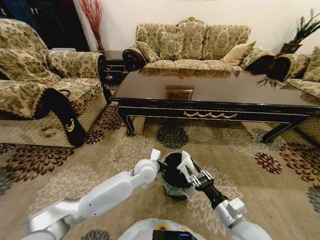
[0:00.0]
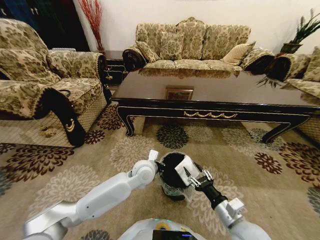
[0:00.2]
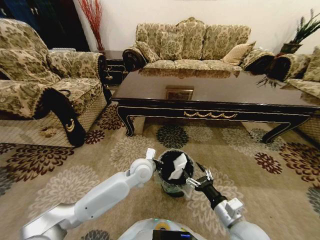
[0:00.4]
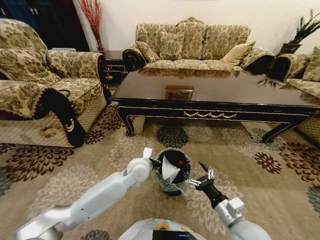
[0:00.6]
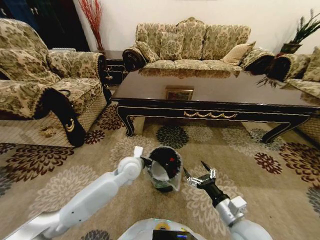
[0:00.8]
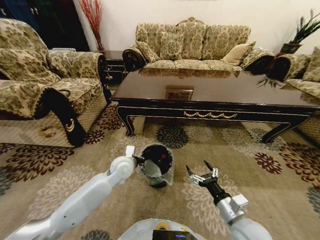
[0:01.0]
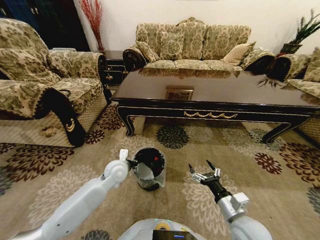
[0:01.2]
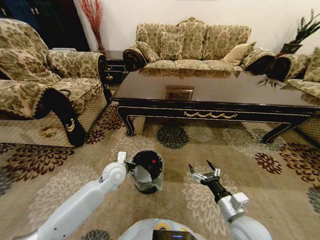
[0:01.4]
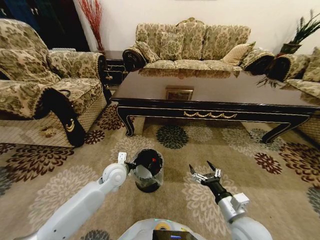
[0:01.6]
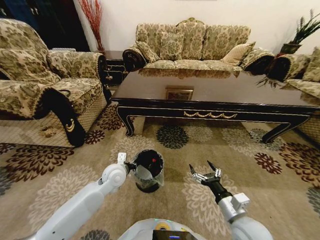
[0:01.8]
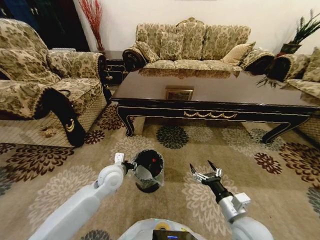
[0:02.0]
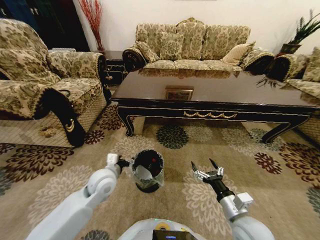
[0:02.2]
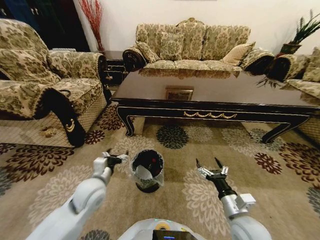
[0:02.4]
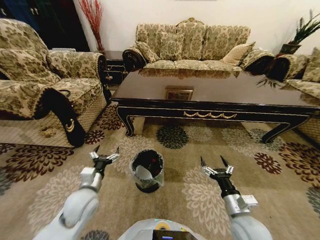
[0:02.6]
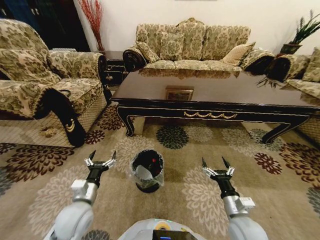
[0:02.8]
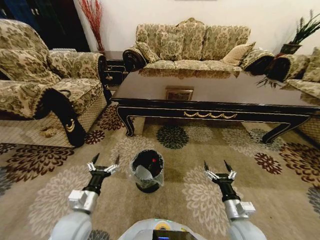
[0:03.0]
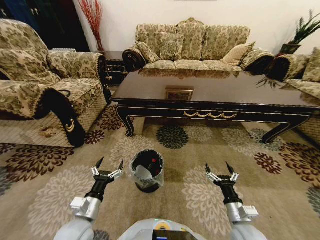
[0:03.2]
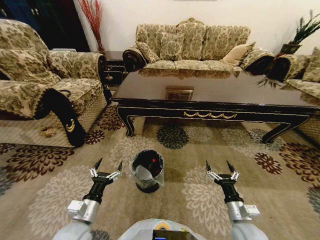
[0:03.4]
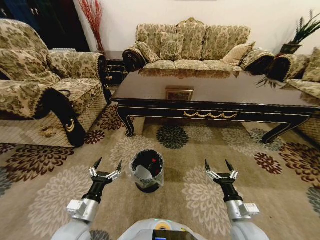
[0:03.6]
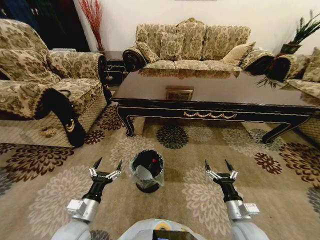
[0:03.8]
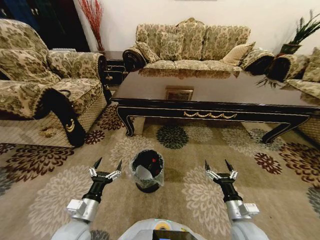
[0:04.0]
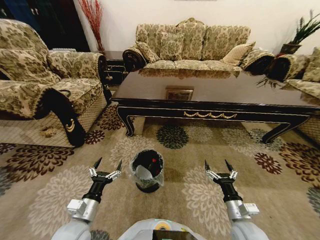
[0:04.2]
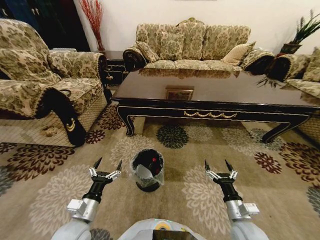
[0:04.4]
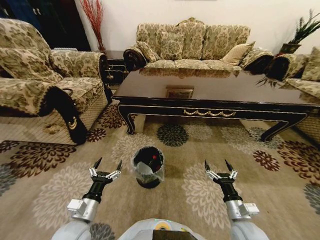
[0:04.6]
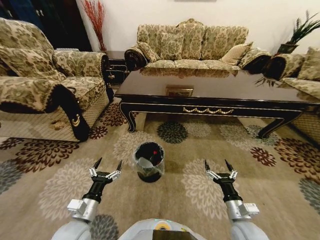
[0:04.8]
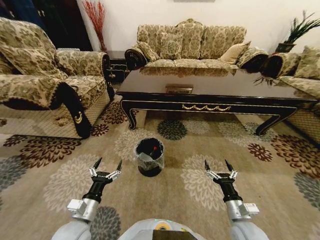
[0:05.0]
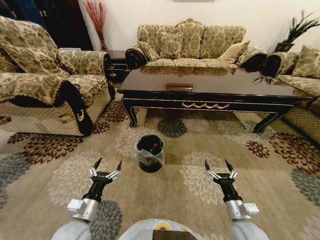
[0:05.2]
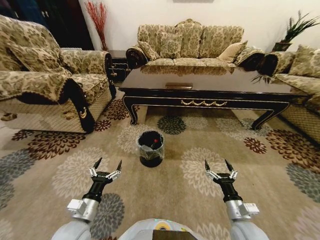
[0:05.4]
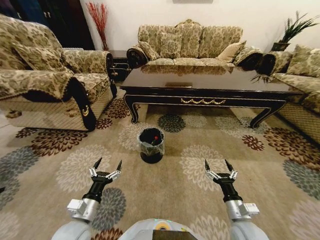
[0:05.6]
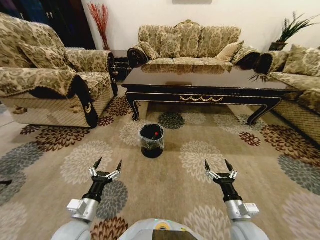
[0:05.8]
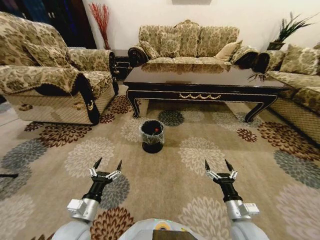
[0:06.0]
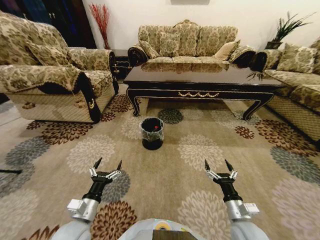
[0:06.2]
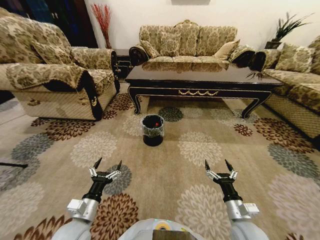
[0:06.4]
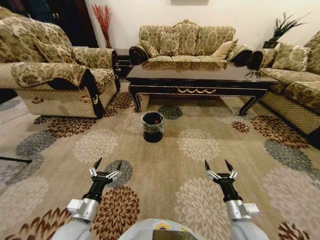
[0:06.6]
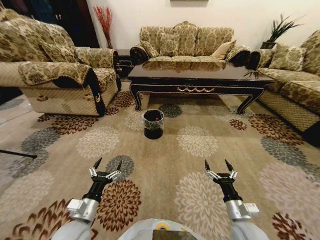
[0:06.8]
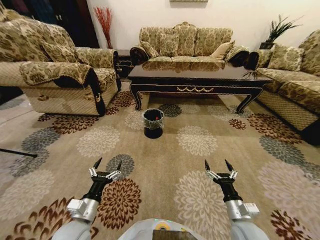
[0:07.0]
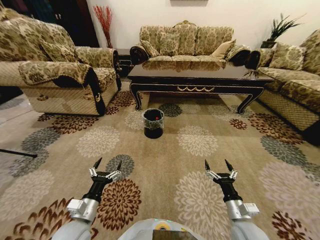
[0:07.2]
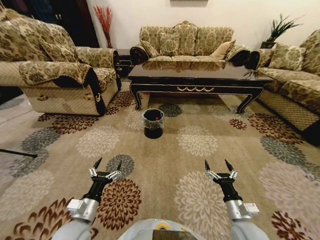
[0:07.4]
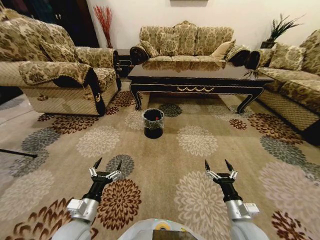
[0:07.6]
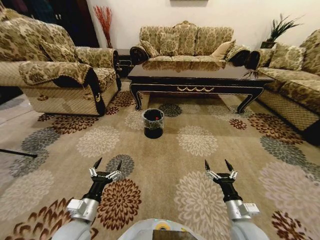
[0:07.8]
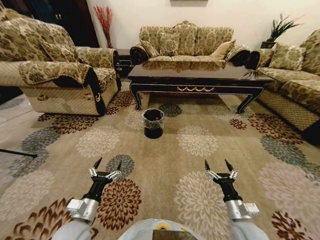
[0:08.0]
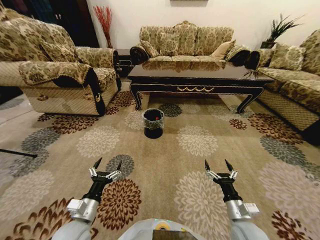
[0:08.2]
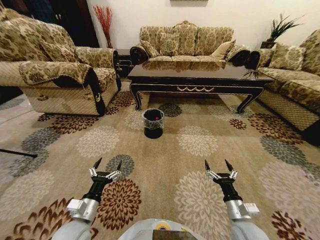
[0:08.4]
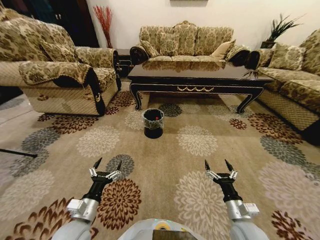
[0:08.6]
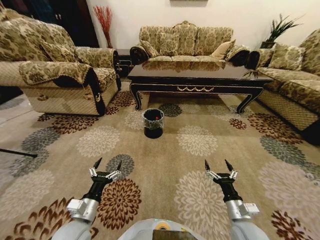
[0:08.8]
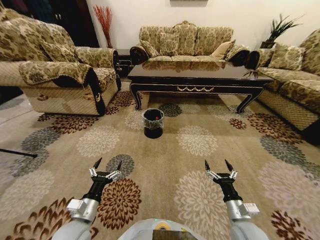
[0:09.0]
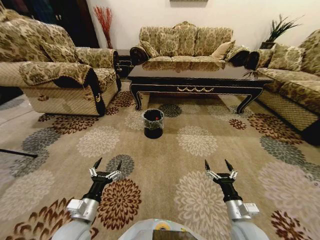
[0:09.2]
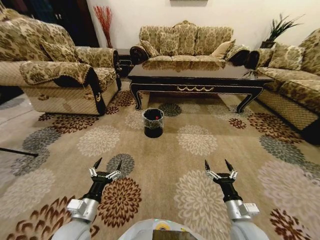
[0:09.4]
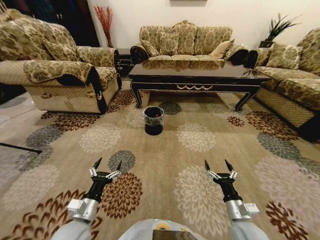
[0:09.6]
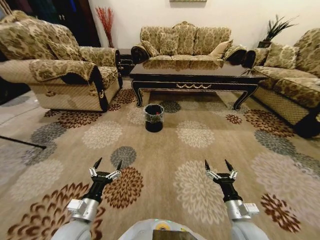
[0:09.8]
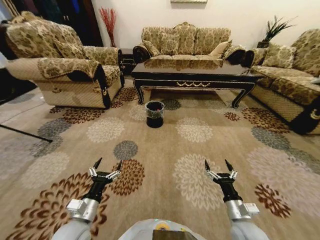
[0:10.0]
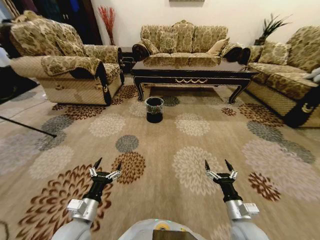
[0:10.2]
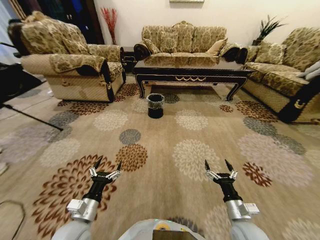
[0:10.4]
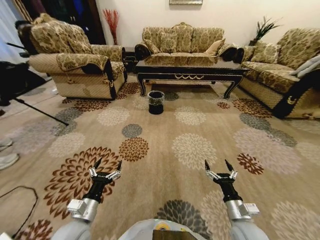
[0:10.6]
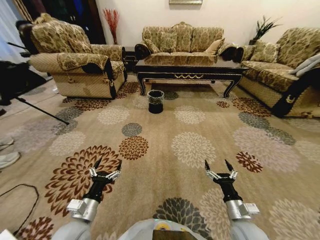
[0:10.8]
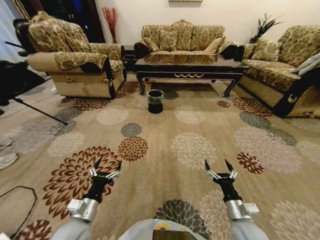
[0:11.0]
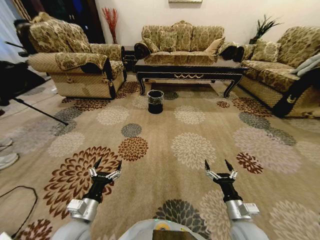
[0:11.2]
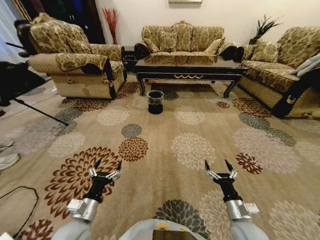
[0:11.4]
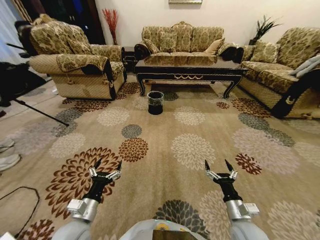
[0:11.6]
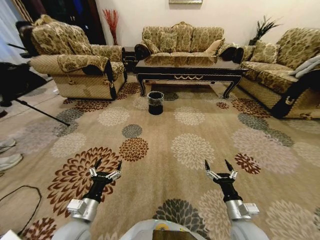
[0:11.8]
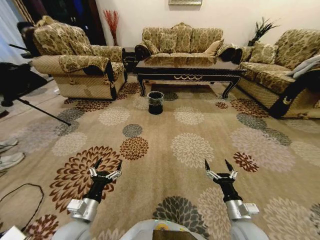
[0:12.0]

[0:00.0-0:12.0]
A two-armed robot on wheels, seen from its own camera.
Task of the whole recording: Move to the front of the table and pick up the trash from the floor, then place it into the trash bin.
0:00.0 to 0:01.6: The right gripper opens up. The left gripper shifts about 15 cm to the left.
0:01.6 to 0:03.0: The left gripper moves backward and to the left, roughly 20 cm, and opens its fingers, while the right gripper travels downward by about 5 cm.
0:03.0 to 0:04.4: The grippers stay close to where they were, moving slightly.
0:07.6 to 0:09.0: The two grippers keep their place.

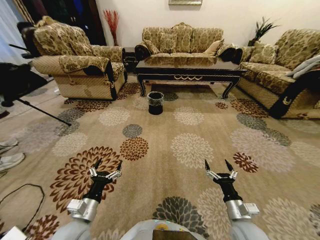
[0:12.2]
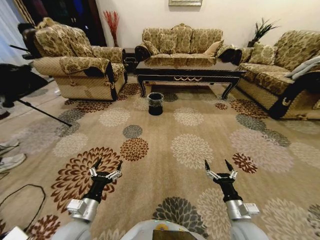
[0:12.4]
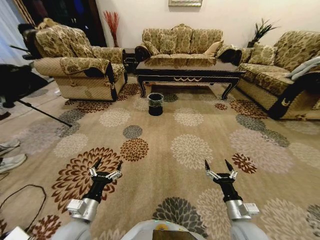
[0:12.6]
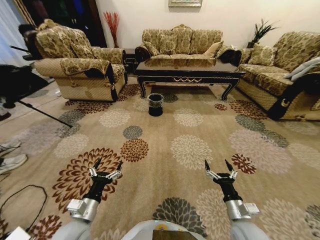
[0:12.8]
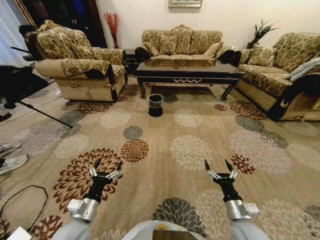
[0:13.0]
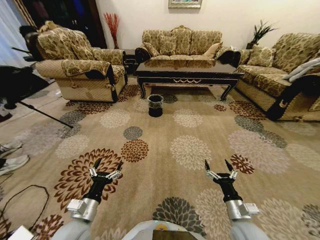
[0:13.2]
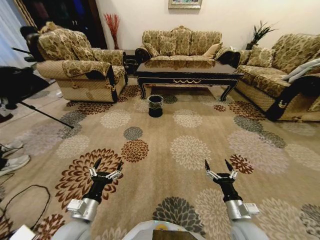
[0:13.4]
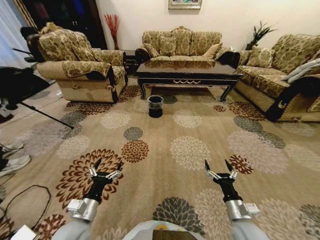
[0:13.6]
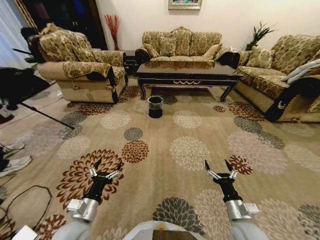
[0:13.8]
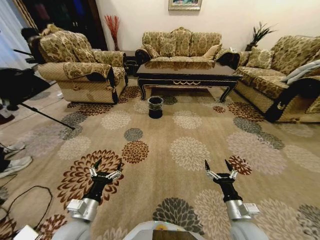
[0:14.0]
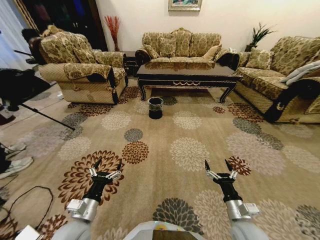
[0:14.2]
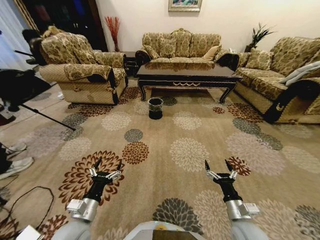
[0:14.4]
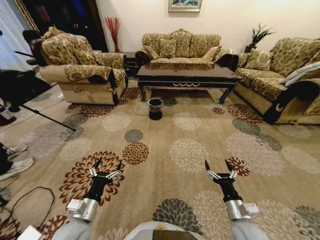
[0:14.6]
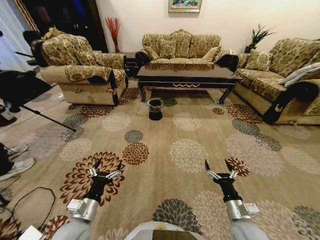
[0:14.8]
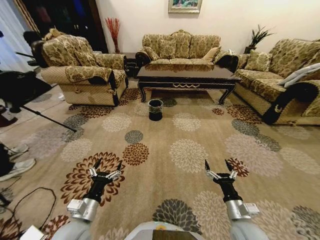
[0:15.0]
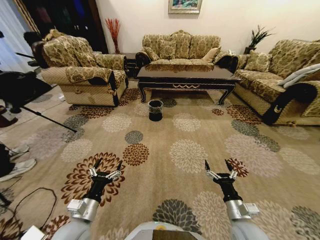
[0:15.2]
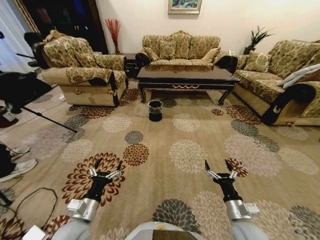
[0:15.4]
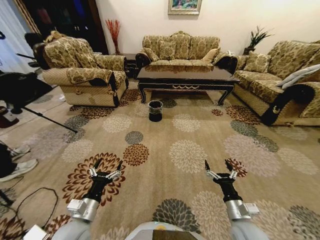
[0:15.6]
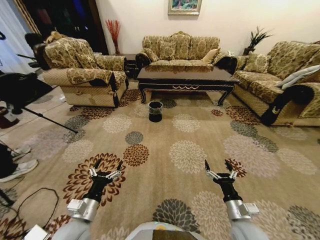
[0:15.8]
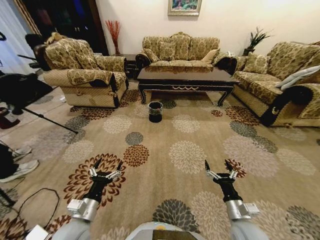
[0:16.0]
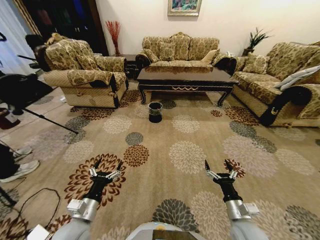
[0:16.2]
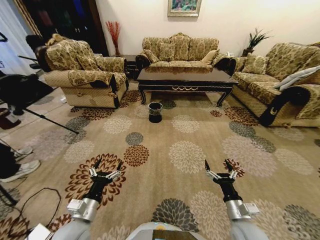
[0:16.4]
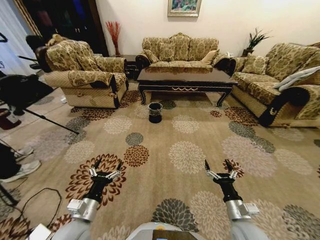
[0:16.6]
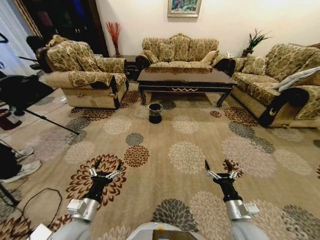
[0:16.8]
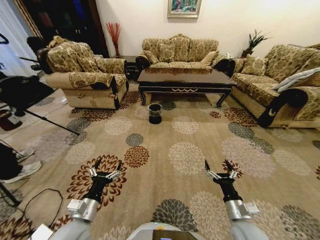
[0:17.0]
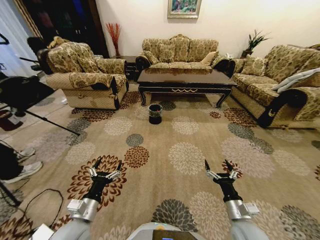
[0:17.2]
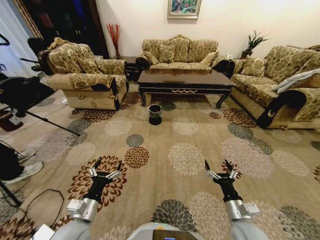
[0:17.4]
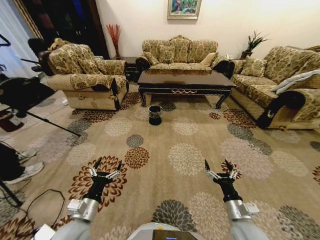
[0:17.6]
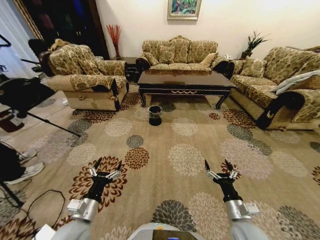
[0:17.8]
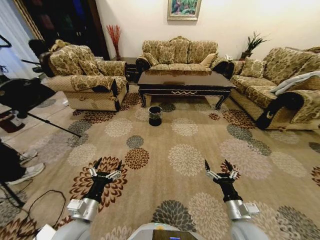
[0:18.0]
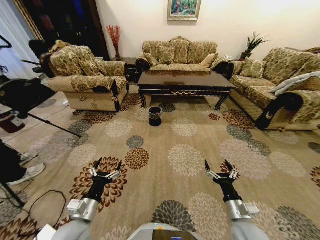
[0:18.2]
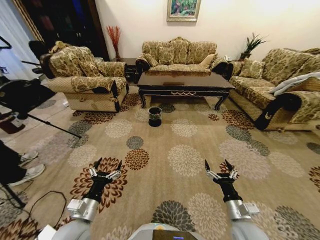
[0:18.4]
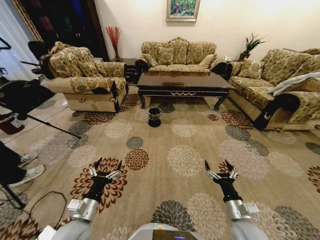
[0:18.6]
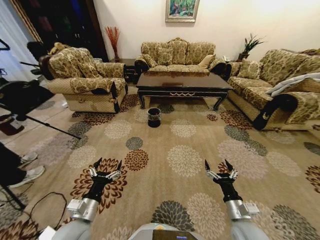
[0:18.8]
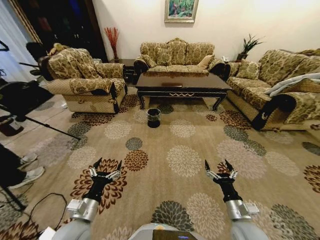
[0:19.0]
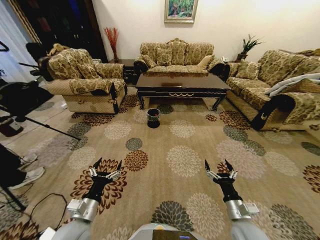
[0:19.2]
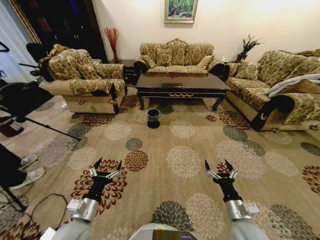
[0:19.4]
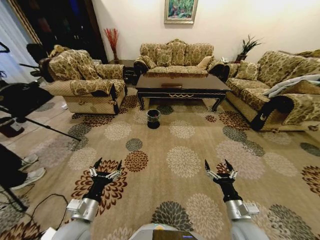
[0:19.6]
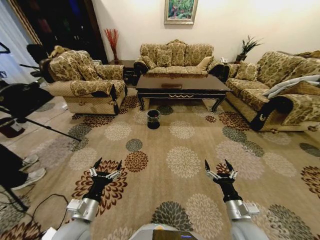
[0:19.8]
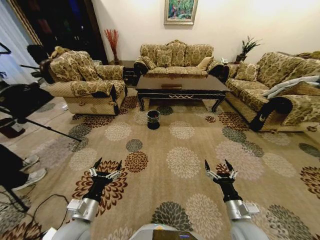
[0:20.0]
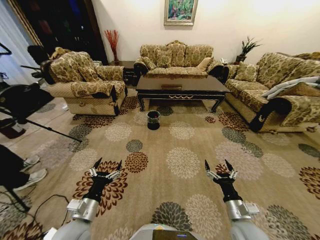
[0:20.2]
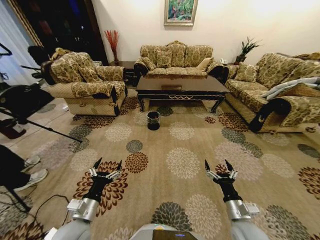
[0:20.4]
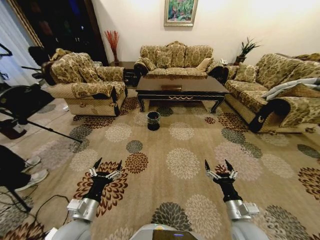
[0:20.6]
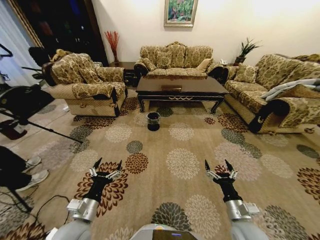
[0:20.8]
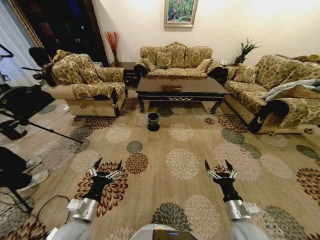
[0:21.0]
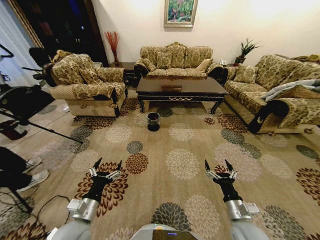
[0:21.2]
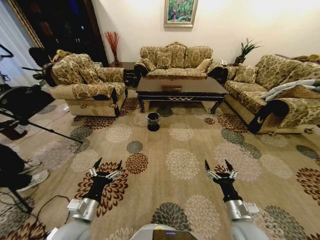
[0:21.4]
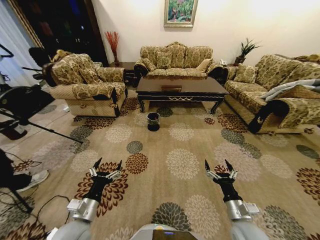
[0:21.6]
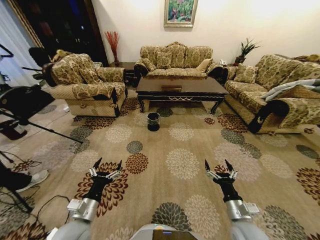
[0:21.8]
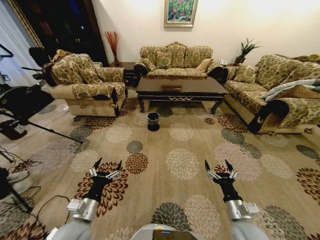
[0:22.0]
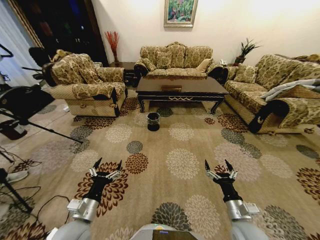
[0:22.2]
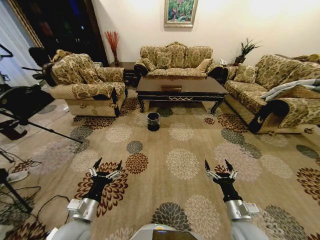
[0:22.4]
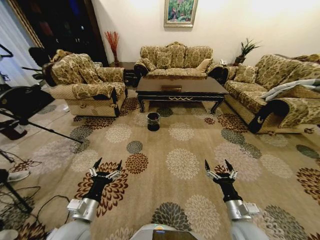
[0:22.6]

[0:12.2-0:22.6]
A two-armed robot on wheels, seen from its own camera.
Task of the whole recording: Move to the front of the table and pick up the trash from the floor, then place it into the trash bin.
0:21.2 to 0:22.6: Neither gripper changes place.
